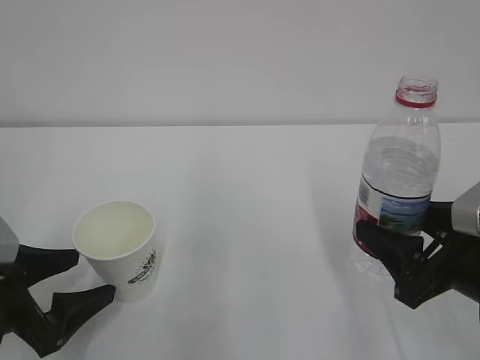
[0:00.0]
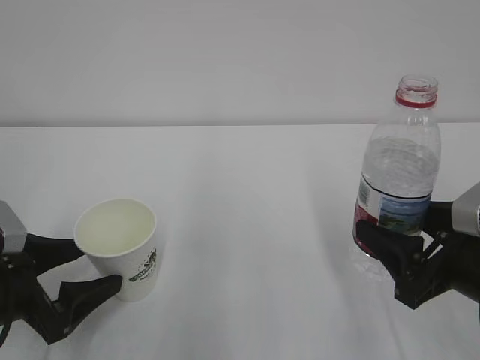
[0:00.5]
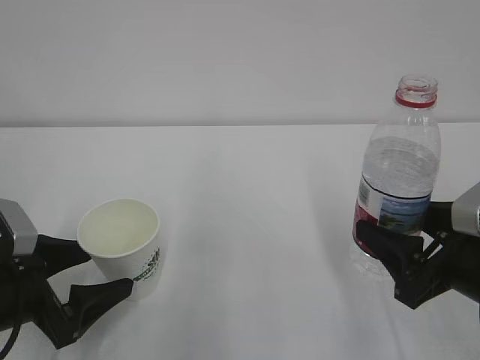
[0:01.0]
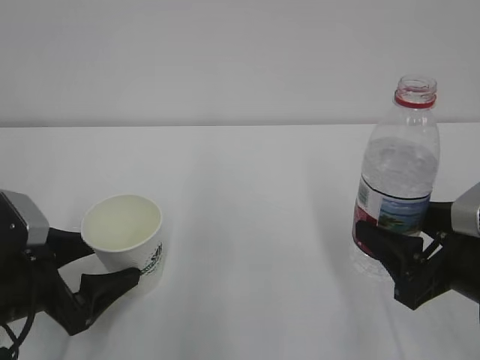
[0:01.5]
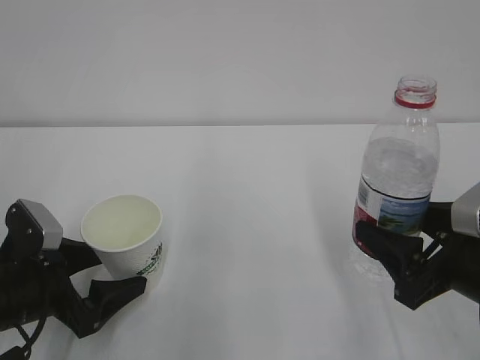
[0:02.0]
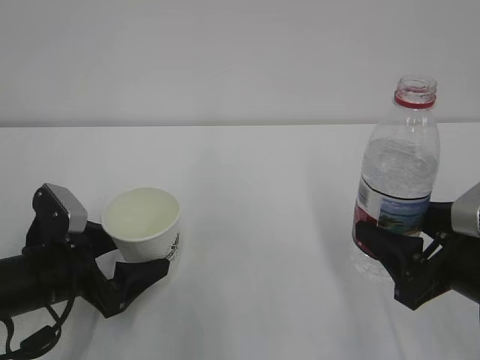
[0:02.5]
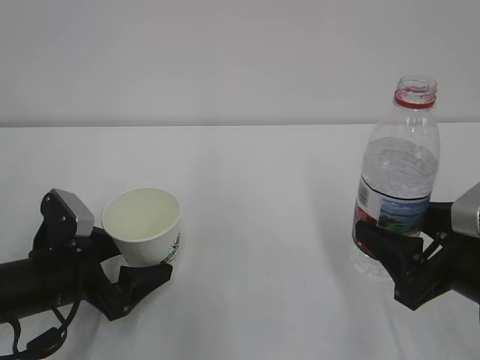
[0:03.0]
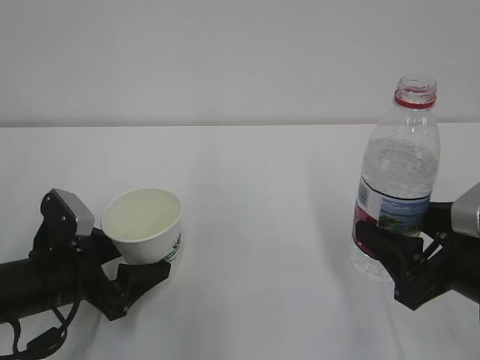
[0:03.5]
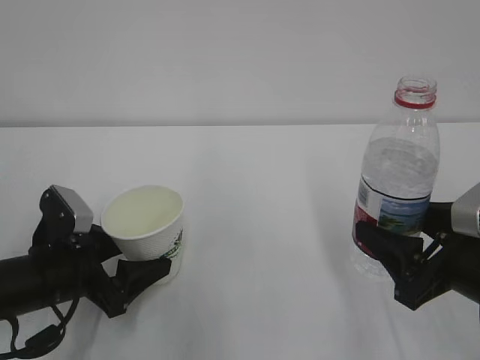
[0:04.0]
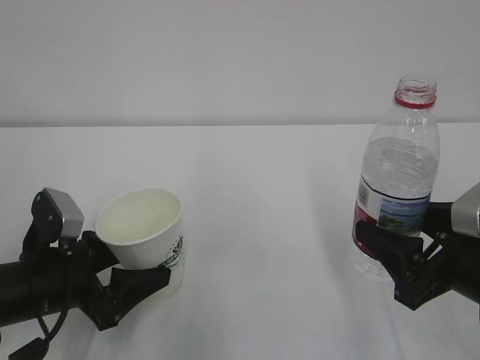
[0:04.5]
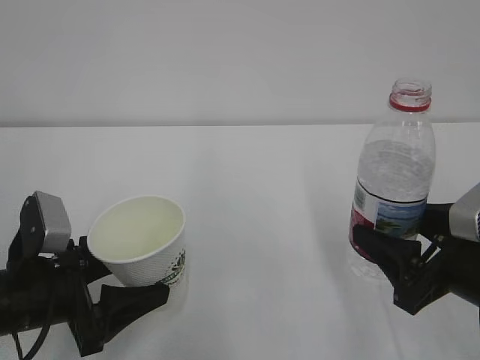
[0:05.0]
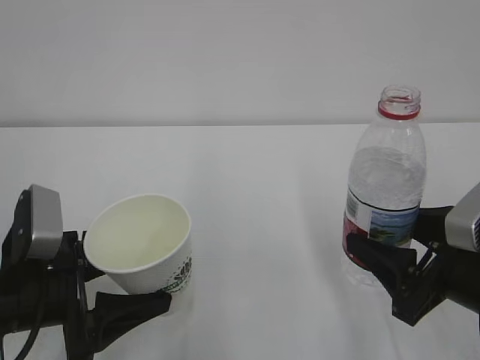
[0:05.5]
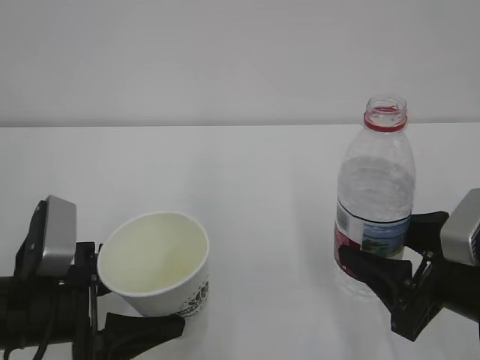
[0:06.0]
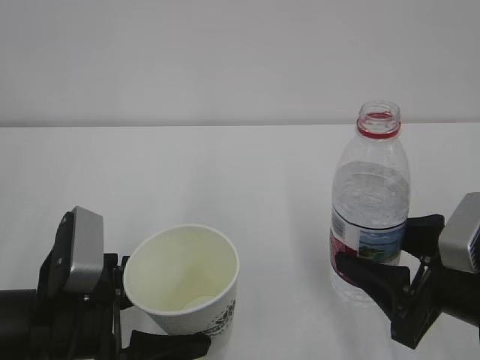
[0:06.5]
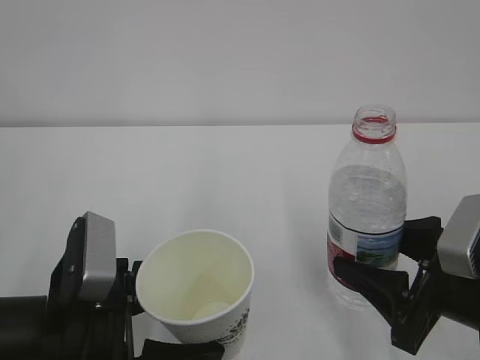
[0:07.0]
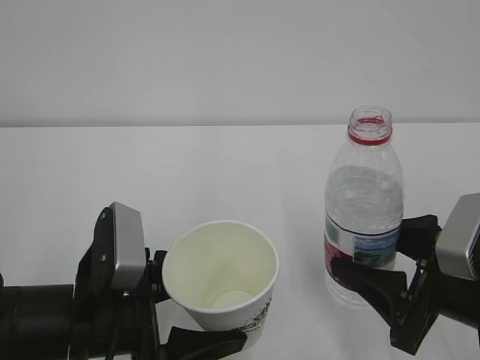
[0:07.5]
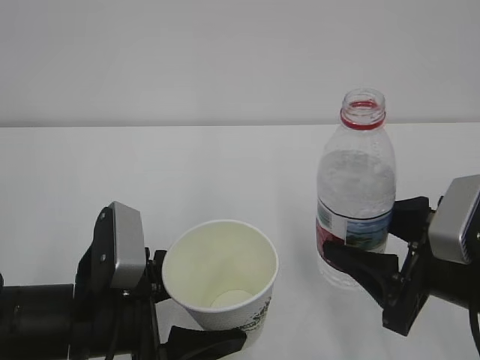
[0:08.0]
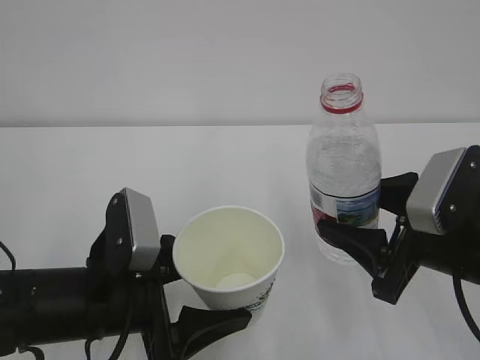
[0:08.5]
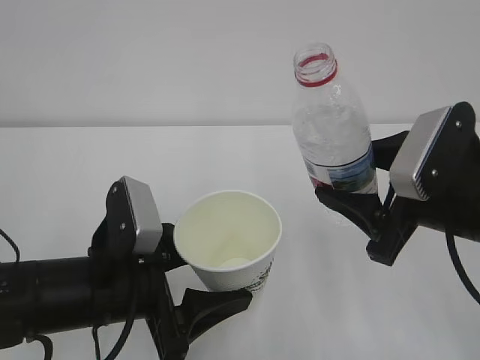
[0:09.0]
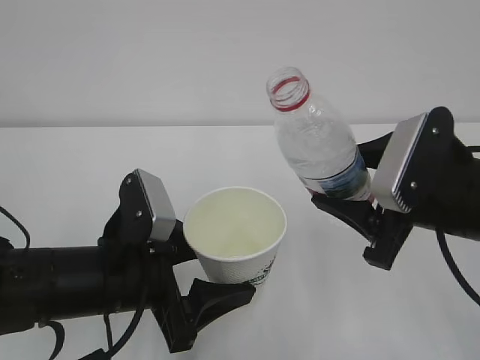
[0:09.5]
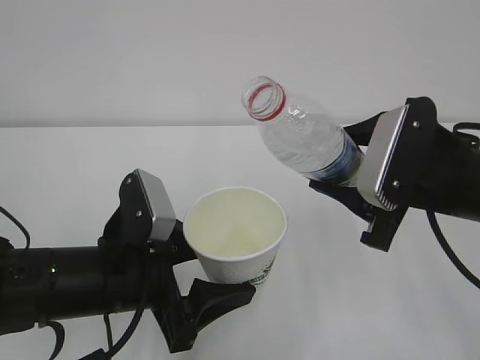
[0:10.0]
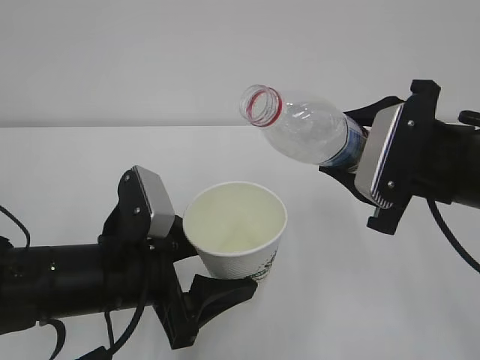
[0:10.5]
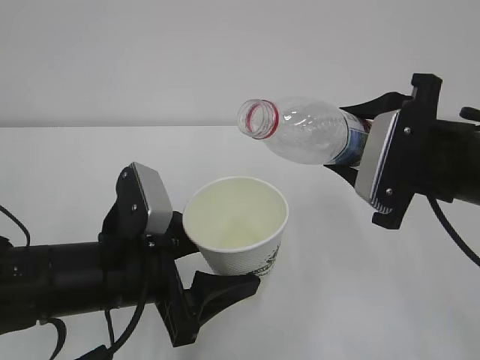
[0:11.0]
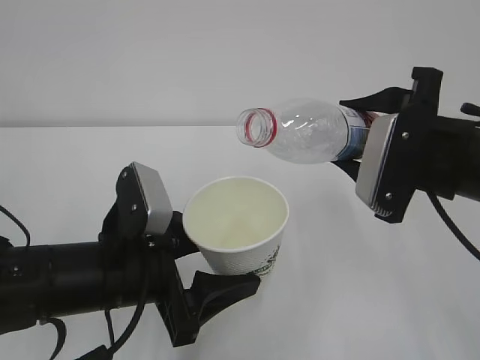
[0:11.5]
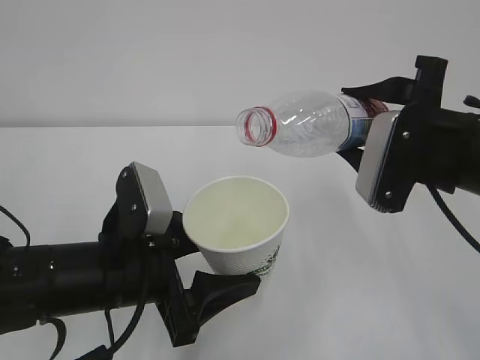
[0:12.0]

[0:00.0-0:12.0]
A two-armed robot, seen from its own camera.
0:00.0 to 0:02.0: The grippers make only small movements.
0:02.0 to 0:04.0: The left gripper closes up.
0:04.0 to 0:06.0: The left gripper heads backward, covering about 5 cm.
0:06.0 to 0:08.0: The left gripper moves to the right, roughly 5 cm.
0:08.0 to 0:10.0: The right gripper travels upward and forward by about 10 cm.

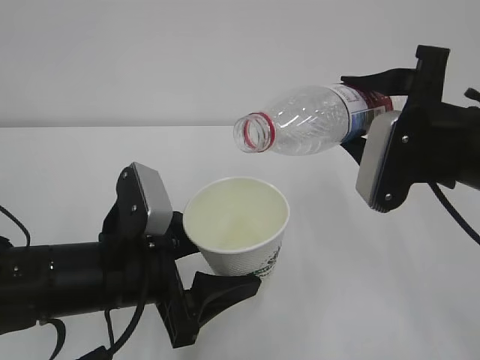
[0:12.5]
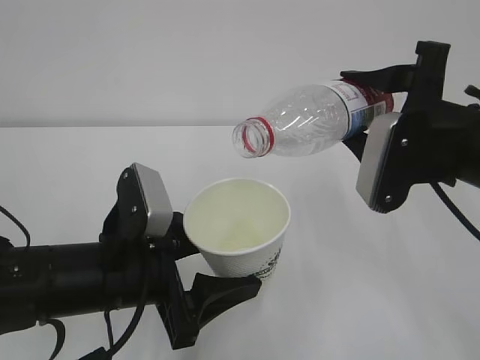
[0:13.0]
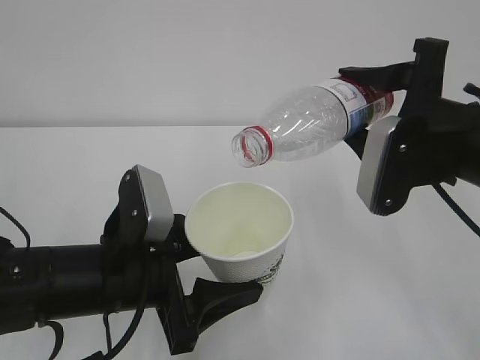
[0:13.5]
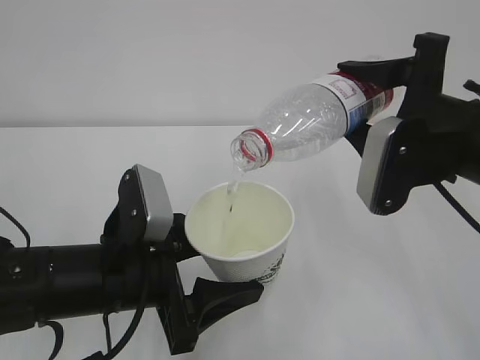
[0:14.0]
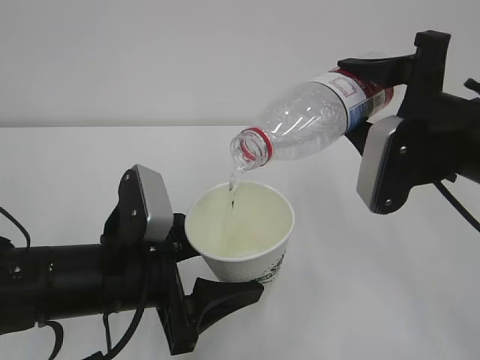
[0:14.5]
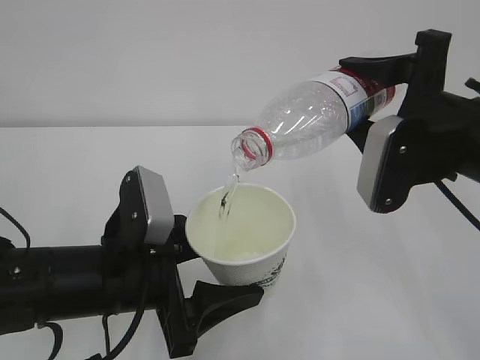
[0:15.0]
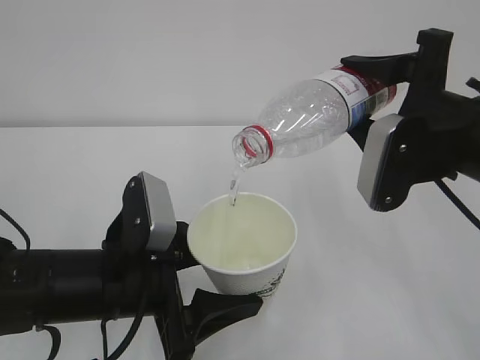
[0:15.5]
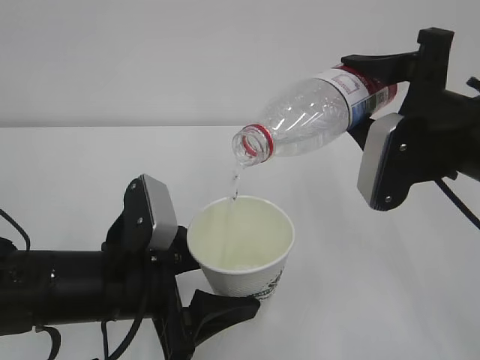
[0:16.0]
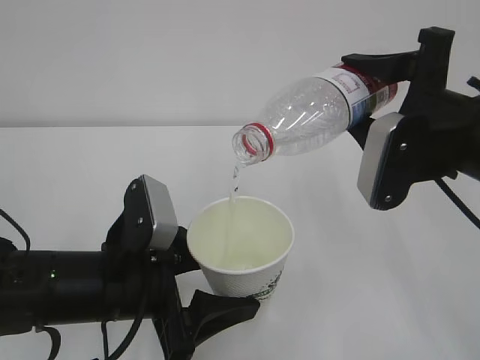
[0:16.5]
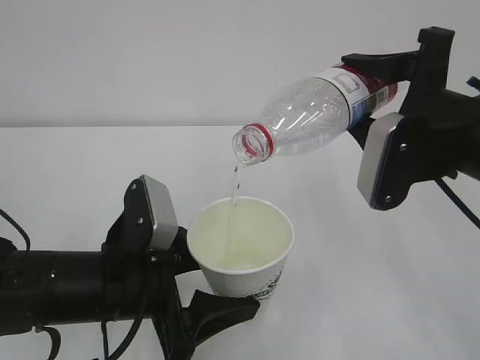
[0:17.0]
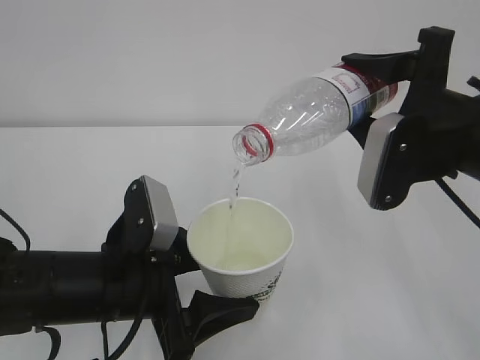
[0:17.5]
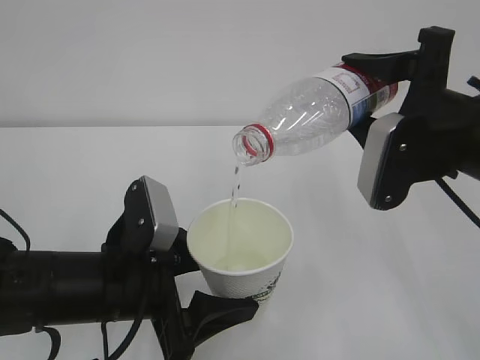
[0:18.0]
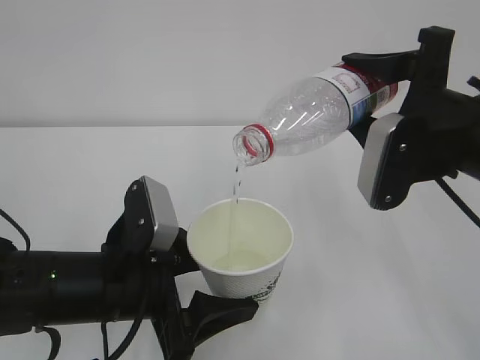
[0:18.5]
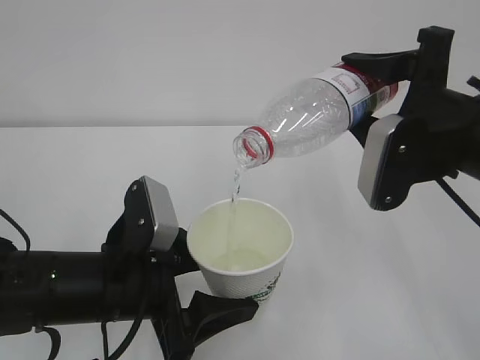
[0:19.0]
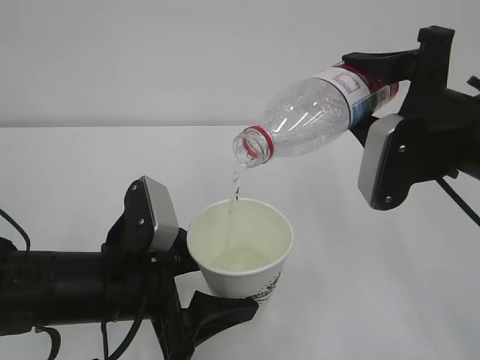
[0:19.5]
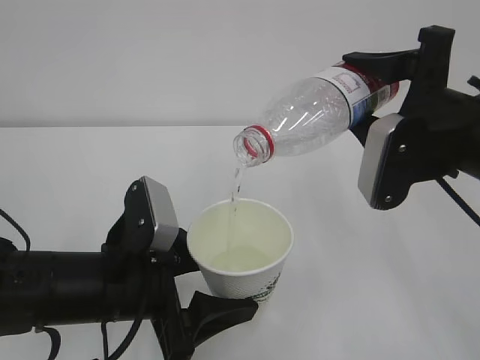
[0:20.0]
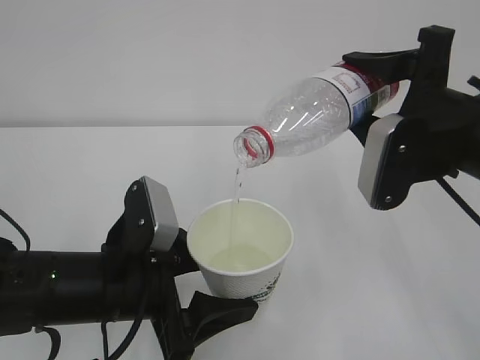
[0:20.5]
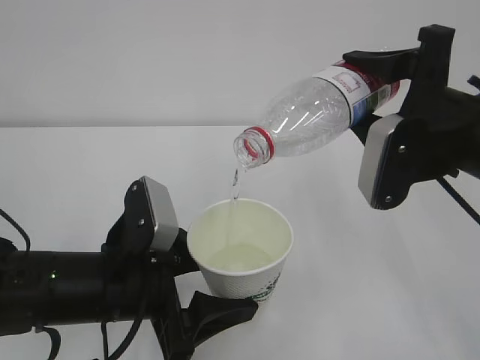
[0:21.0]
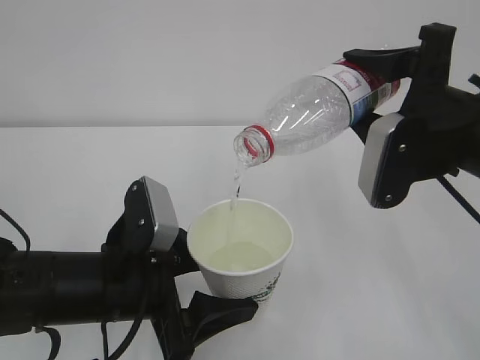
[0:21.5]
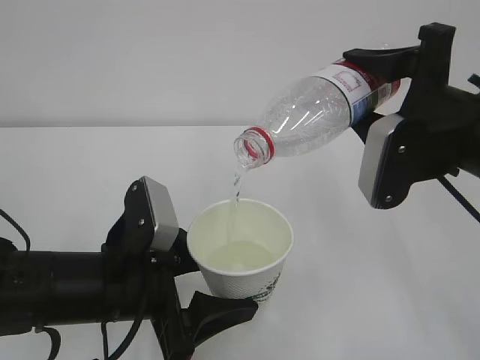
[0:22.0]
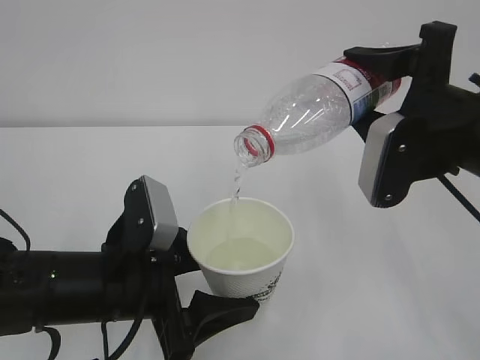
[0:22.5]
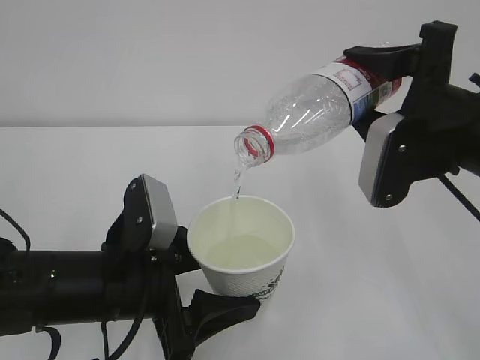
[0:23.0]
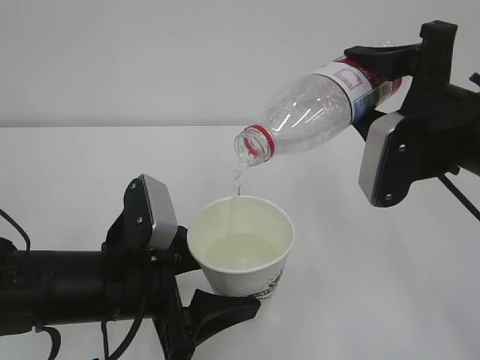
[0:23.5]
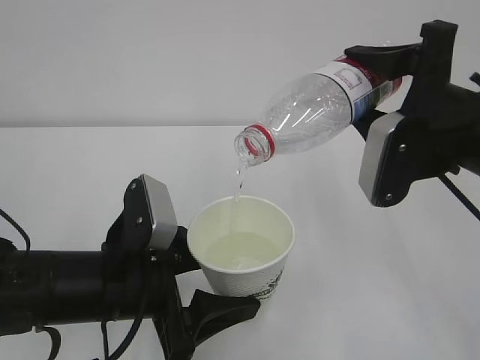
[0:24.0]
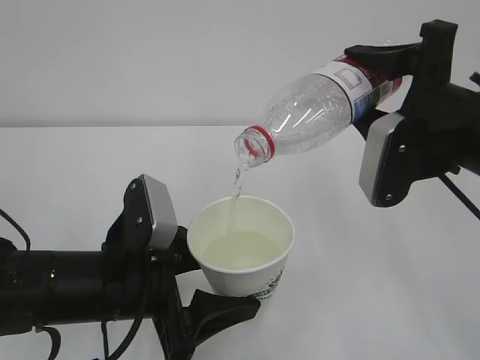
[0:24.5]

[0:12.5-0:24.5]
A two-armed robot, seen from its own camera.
0:12.5 to 0:14.5: The grippers move only a little.
0:14.5 to 0:16.5: Neither gripper changes place.
0:16.5 to 0:24.5: Both grippers stay put.

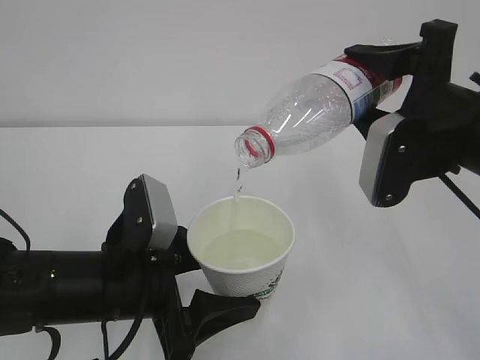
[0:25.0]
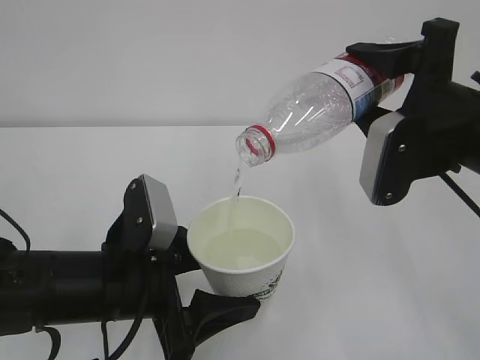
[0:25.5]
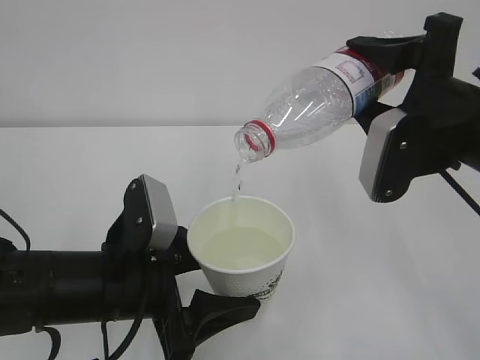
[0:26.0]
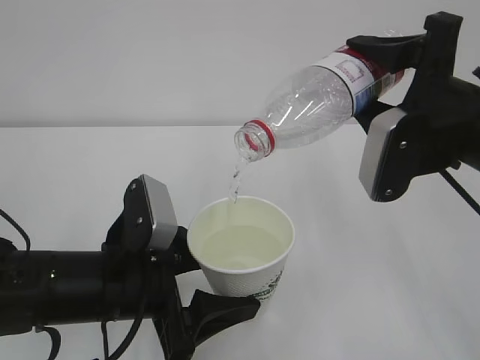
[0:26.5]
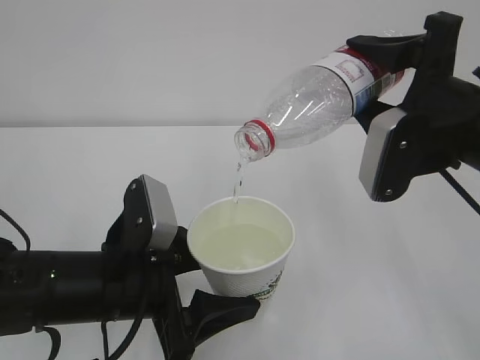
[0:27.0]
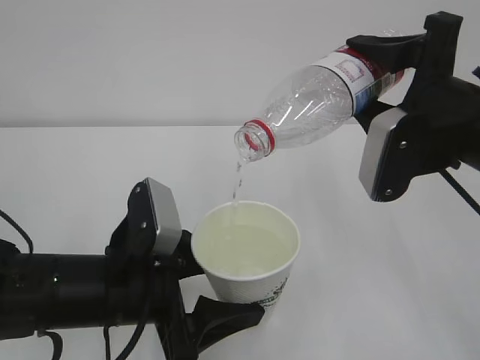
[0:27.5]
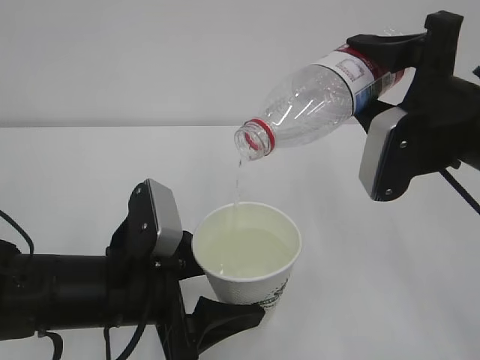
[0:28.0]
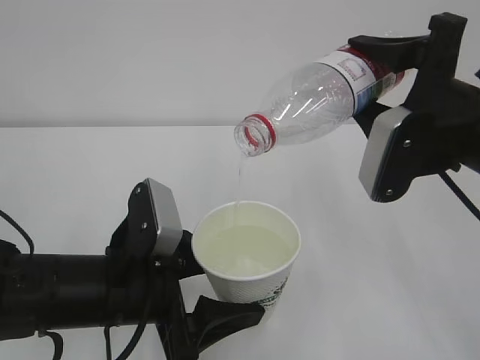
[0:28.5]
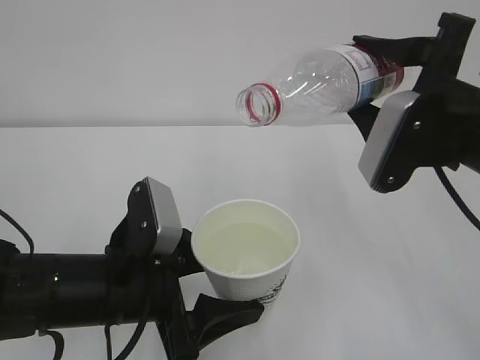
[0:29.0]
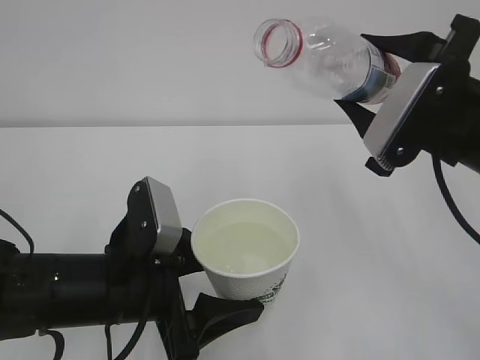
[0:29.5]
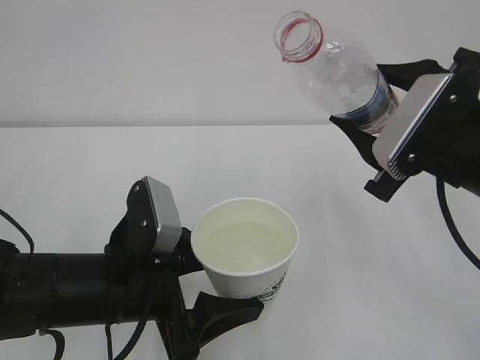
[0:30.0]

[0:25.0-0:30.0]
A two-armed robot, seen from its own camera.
0:25.0 to 0:27.5: The two grippers keep their place.
